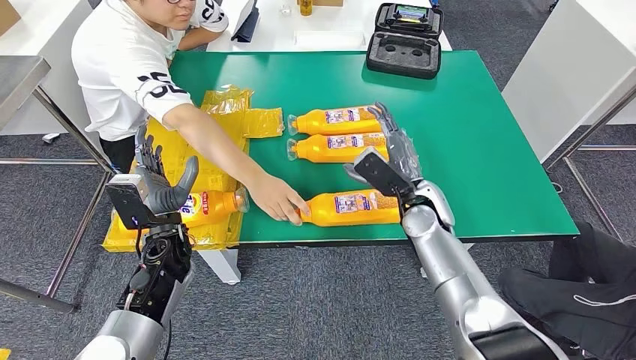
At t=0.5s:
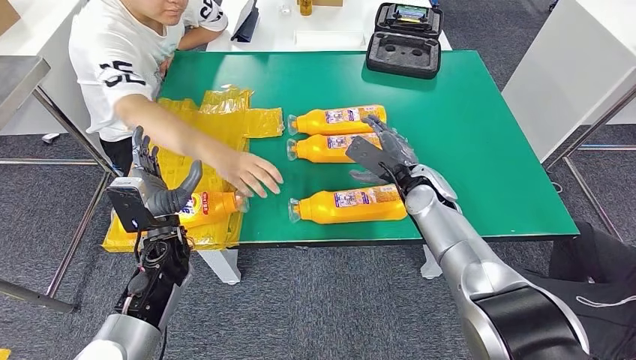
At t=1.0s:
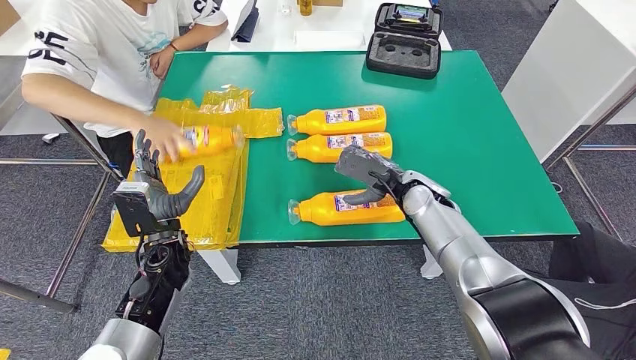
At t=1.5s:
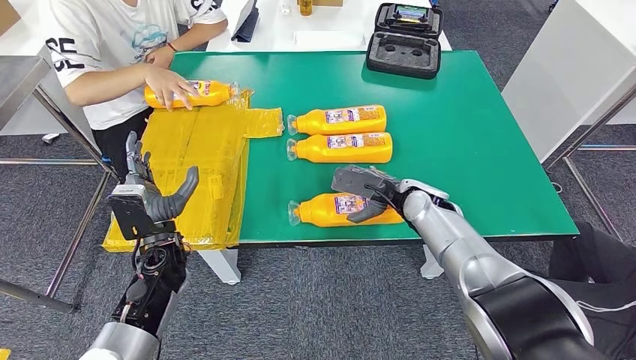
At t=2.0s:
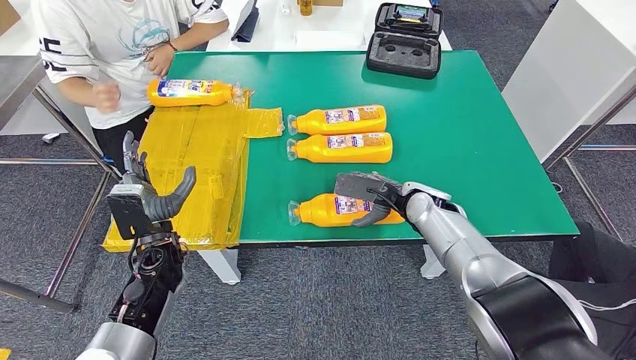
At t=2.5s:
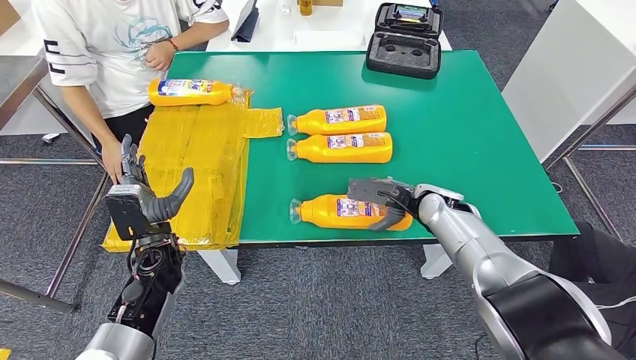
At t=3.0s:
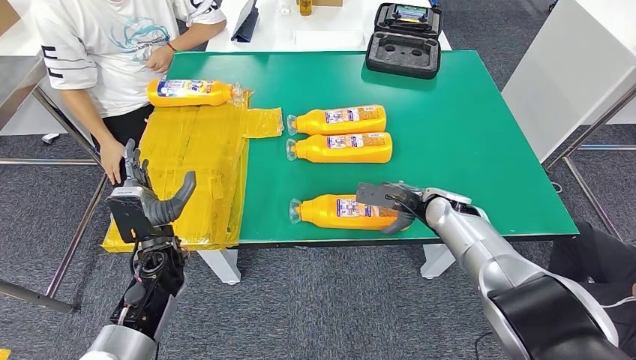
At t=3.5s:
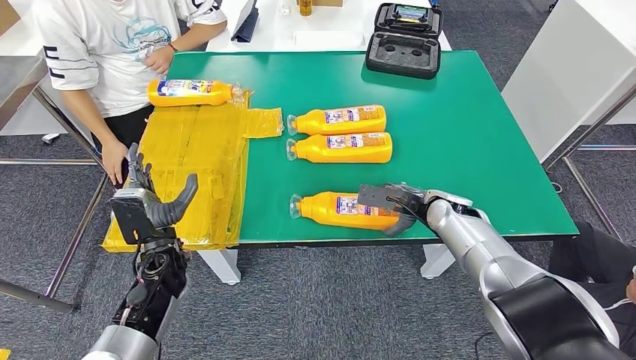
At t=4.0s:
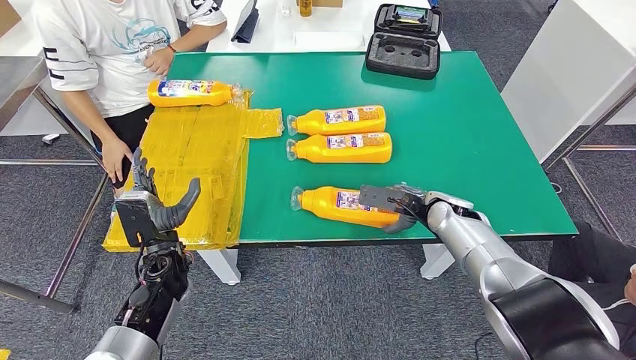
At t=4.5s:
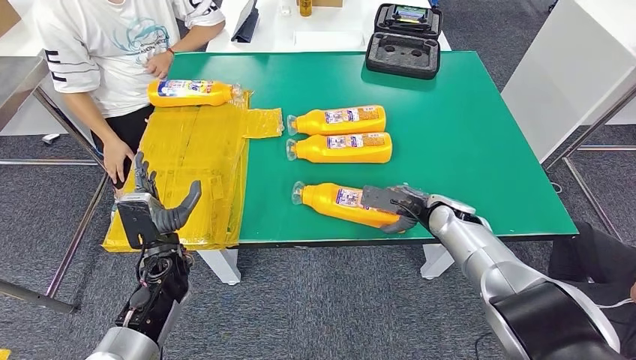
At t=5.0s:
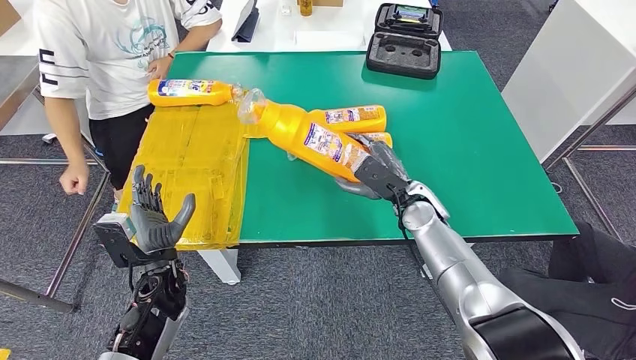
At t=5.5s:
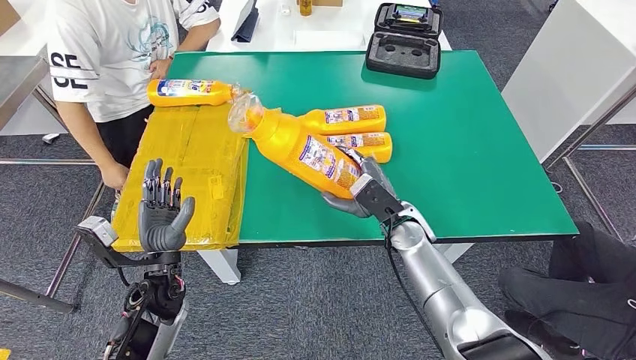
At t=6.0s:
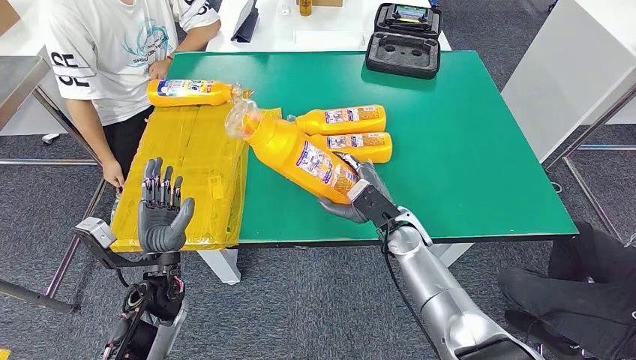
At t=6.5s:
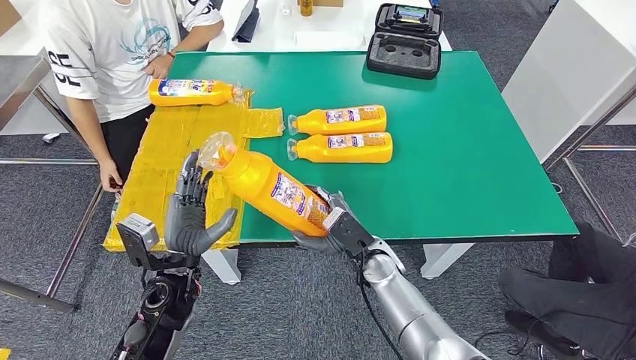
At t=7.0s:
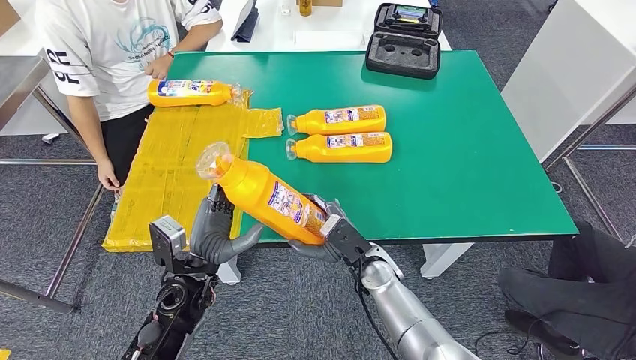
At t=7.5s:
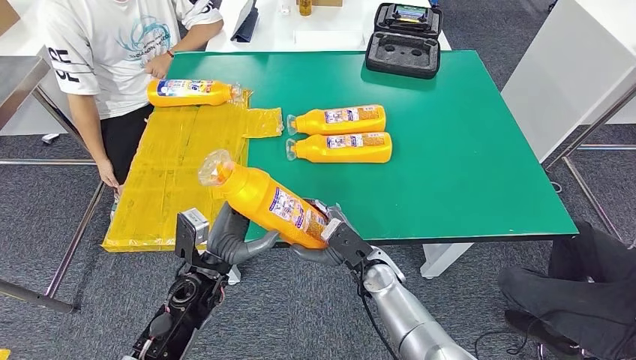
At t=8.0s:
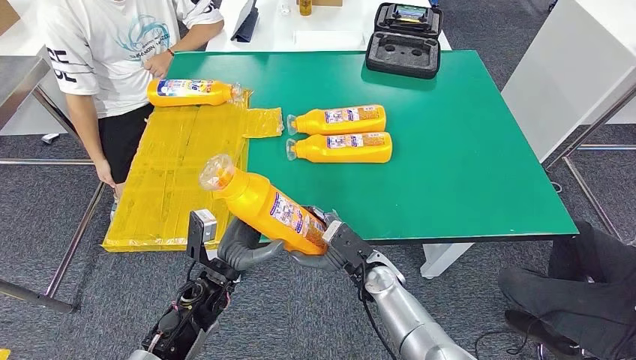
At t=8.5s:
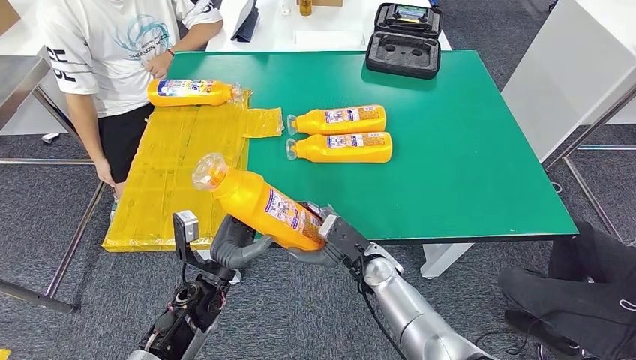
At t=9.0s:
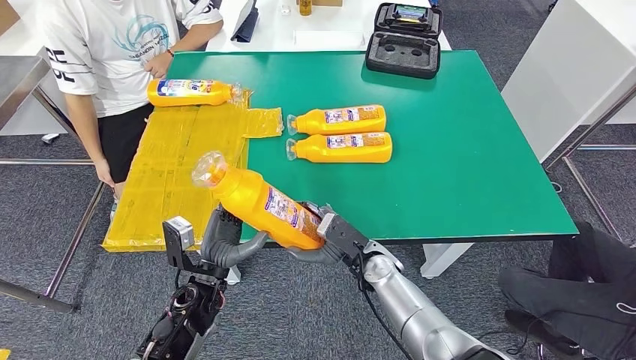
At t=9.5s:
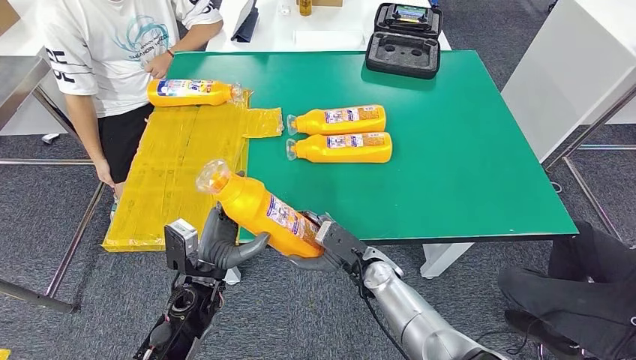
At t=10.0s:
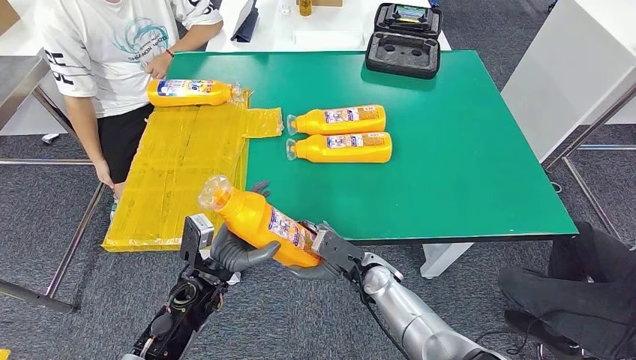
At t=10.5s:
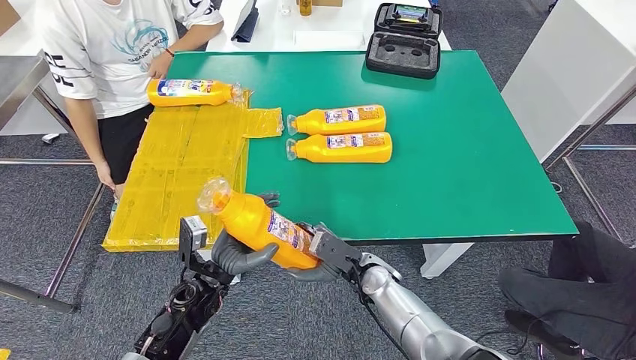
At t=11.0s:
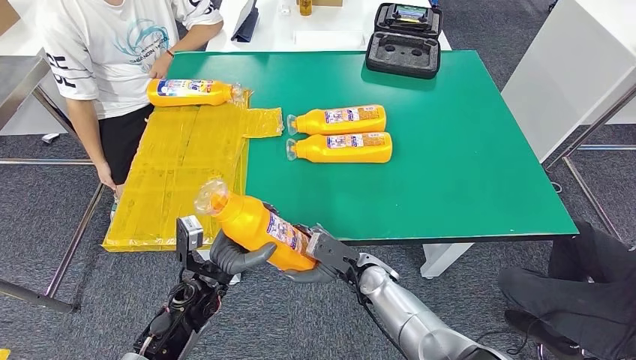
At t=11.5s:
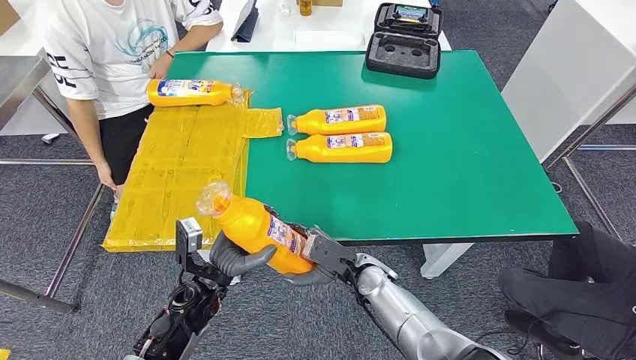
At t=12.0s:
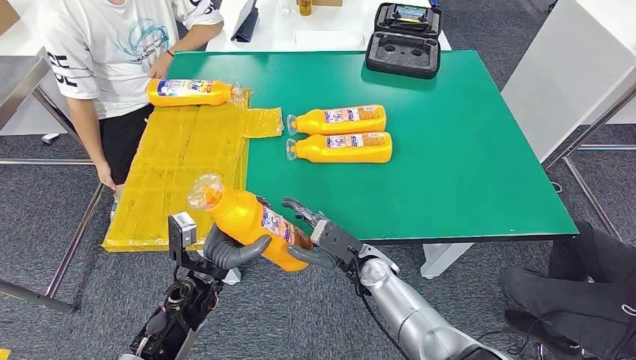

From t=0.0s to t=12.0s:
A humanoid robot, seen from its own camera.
Step, from t=0.0s to t=5.5s: Pick up the fast-moving consumer goods bottle from the table.
From t=2.0s to t=4.0s: The right hand heads to the right, covering approximately 5 cm.
From t=10.0s to t=12.0s: There are only small adjustments of the hands.

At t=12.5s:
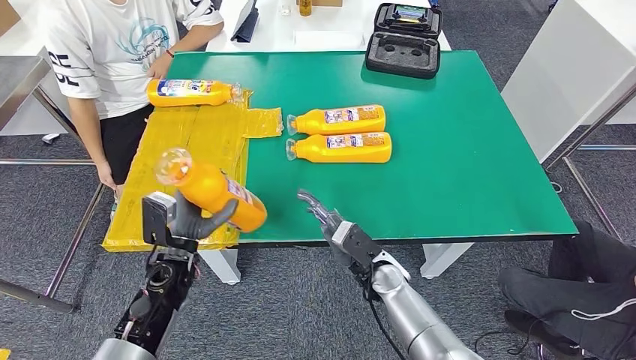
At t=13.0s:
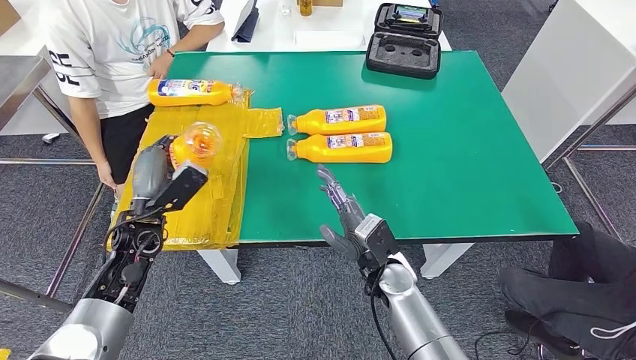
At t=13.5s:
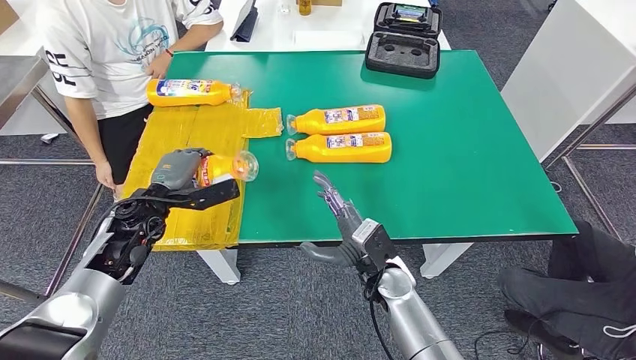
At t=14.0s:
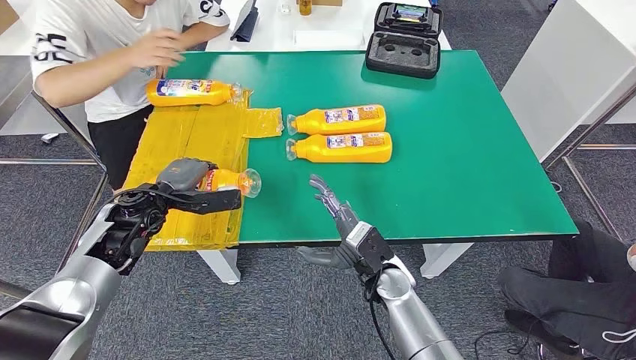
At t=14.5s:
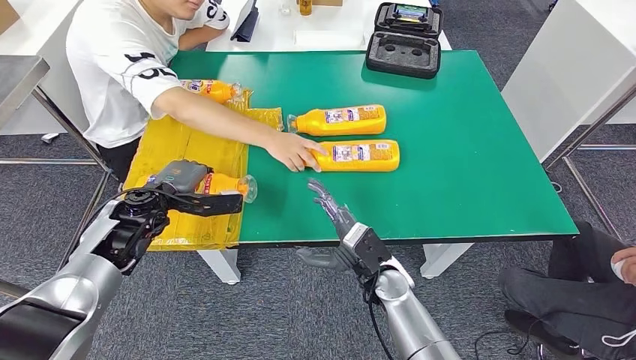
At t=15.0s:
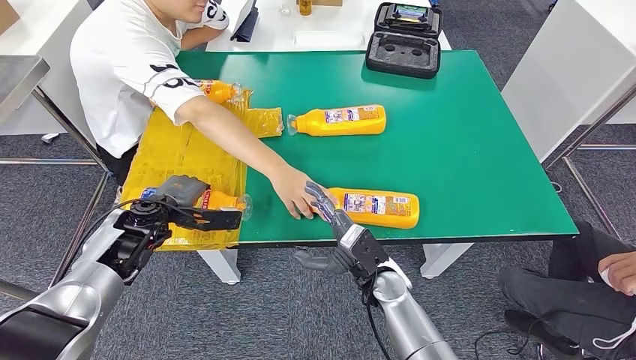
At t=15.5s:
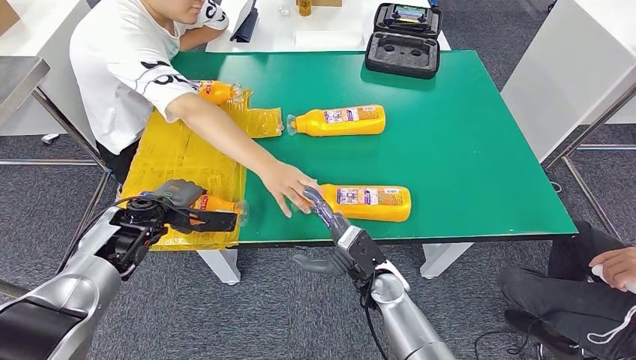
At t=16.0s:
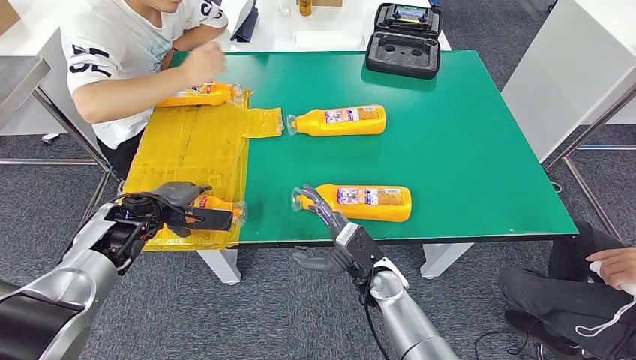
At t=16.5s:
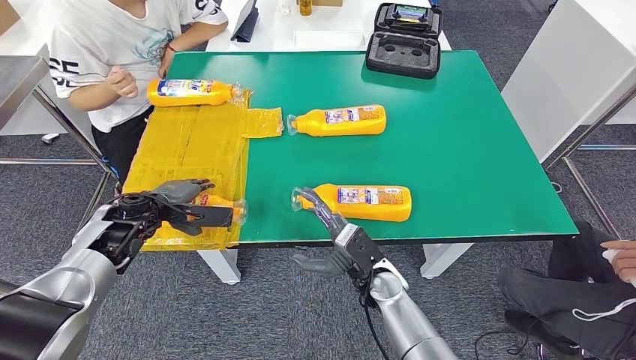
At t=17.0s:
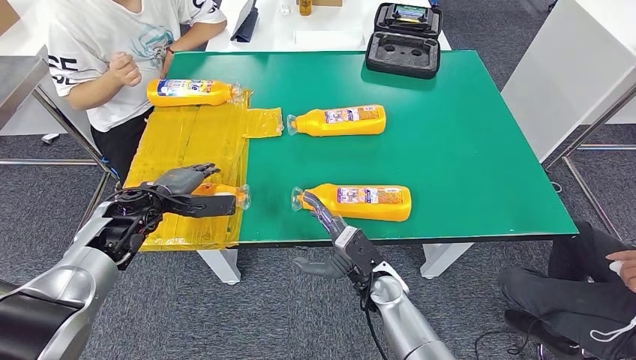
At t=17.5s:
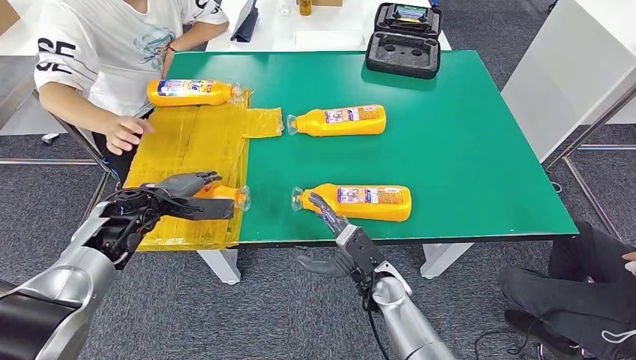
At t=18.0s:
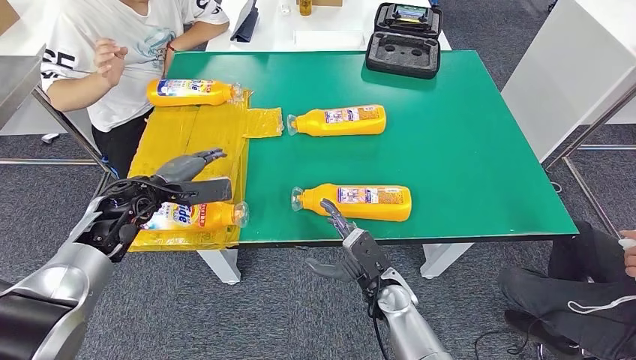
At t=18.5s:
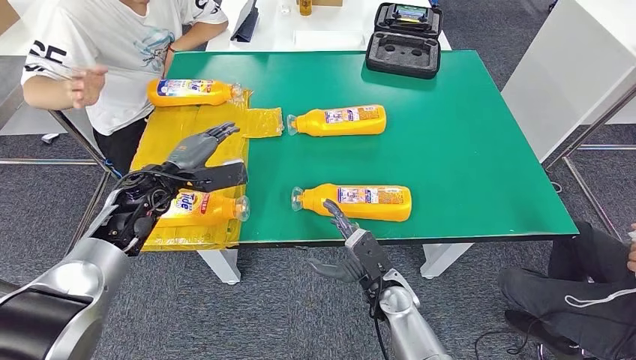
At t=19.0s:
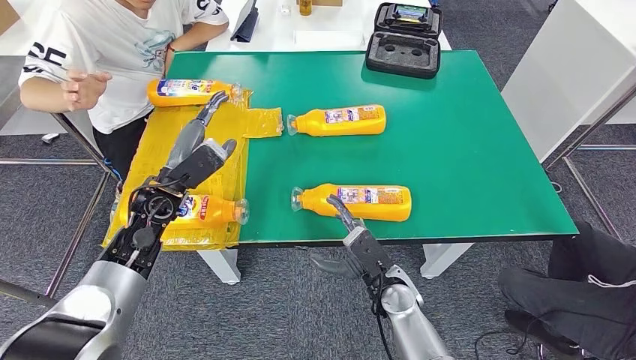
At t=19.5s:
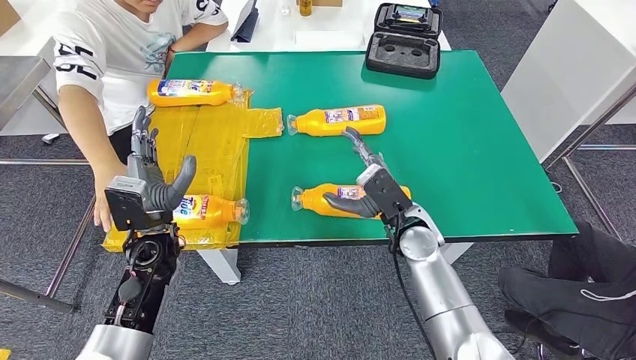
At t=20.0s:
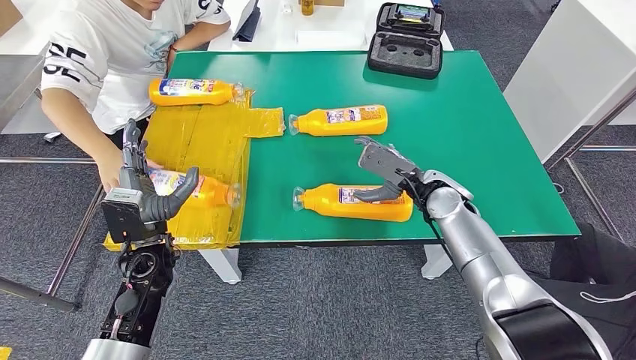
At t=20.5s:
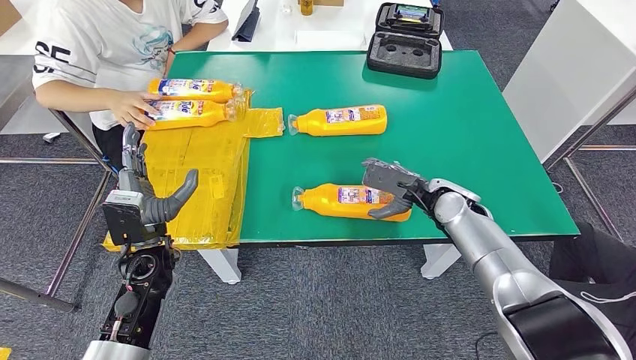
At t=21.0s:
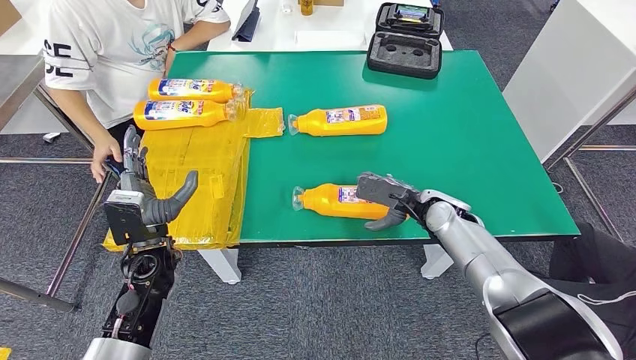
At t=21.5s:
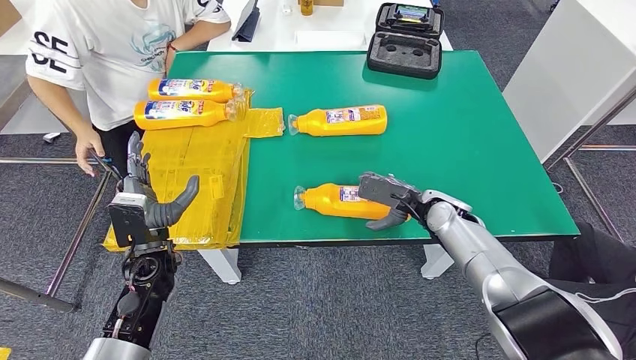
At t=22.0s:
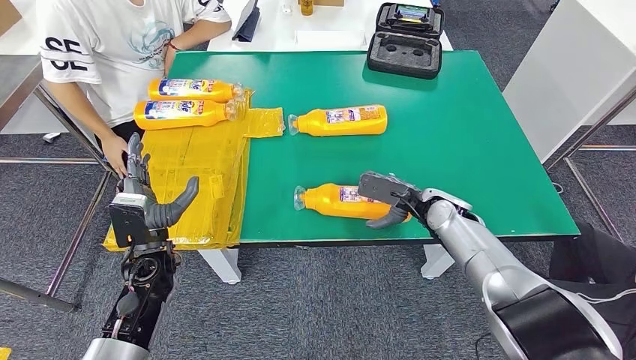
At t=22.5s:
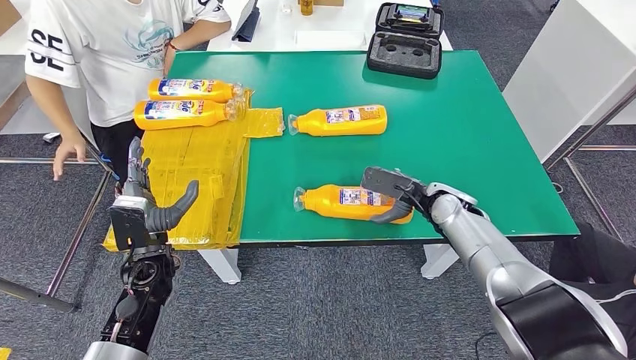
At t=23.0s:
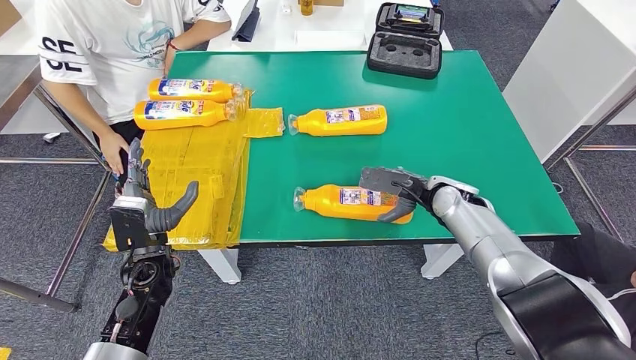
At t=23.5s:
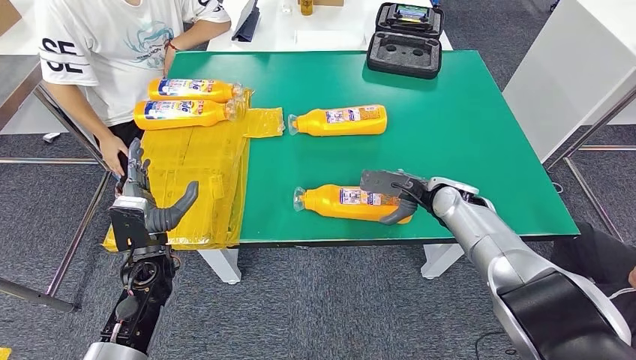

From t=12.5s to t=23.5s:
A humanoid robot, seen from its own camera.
Step, from t=12.5s to t=16.5s: Flip the fast-moving consumer goods bottle to the front side.
From t=14.5s to t=16.0s: The hands make only small movements.
From t=20.0s to t=21.5s: The right hand changes place by roughly 5 cm.
From t=21.5s to t=23.5s: There are only small adjustments of the hands.
